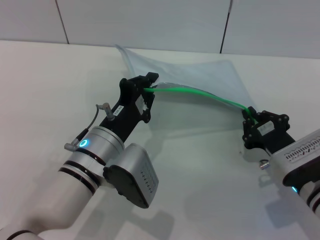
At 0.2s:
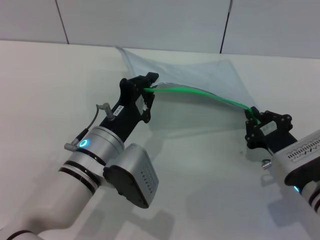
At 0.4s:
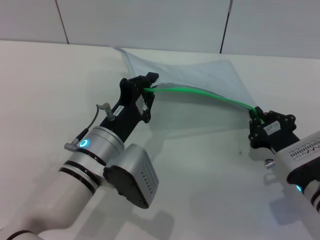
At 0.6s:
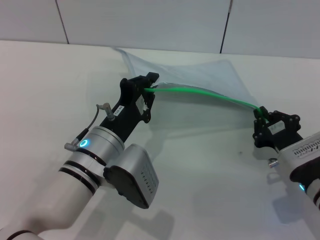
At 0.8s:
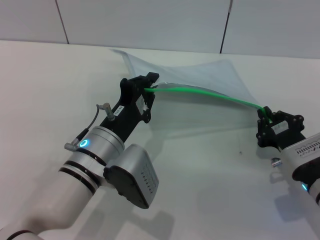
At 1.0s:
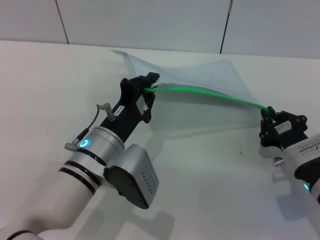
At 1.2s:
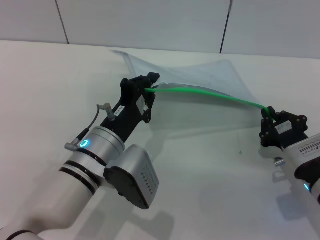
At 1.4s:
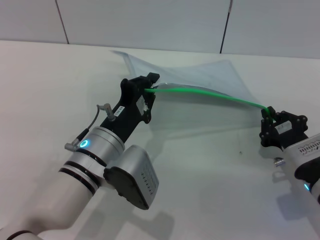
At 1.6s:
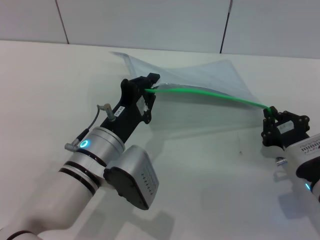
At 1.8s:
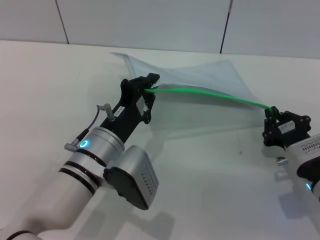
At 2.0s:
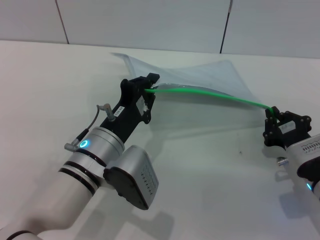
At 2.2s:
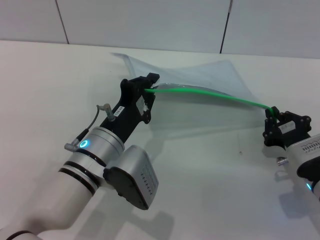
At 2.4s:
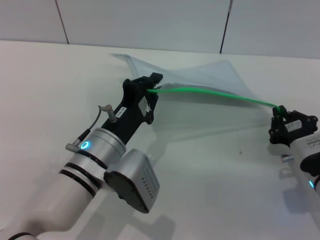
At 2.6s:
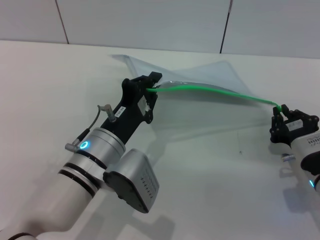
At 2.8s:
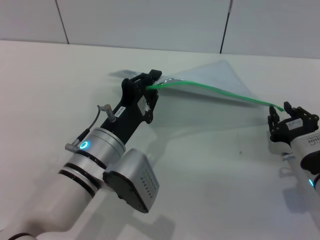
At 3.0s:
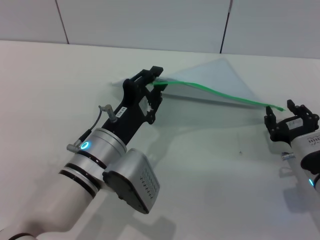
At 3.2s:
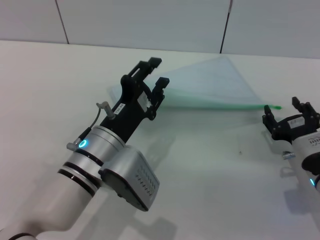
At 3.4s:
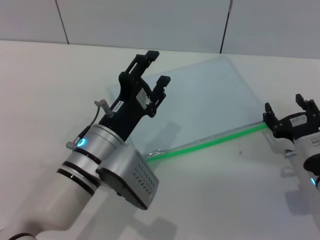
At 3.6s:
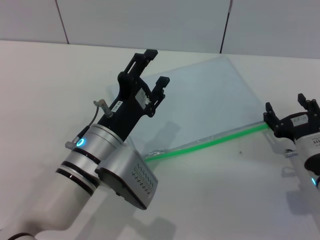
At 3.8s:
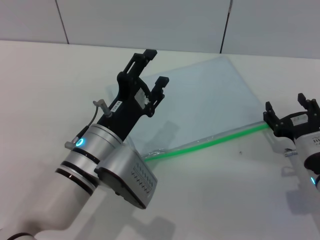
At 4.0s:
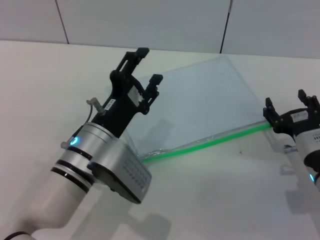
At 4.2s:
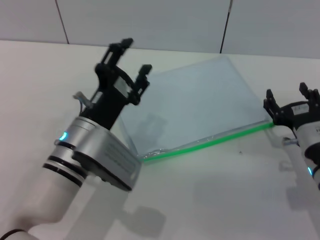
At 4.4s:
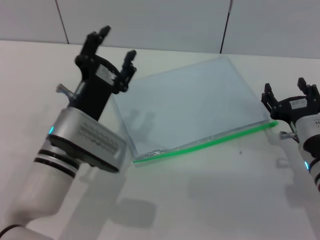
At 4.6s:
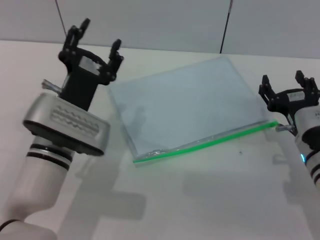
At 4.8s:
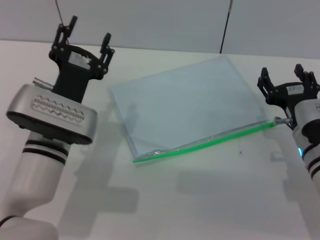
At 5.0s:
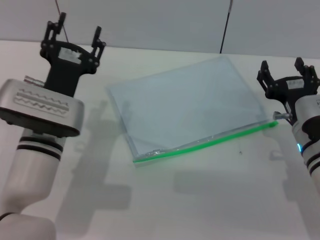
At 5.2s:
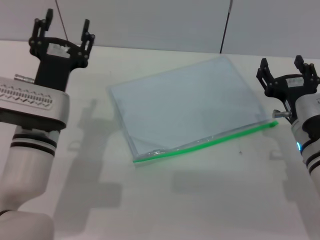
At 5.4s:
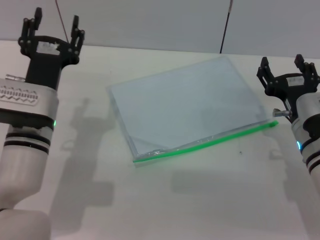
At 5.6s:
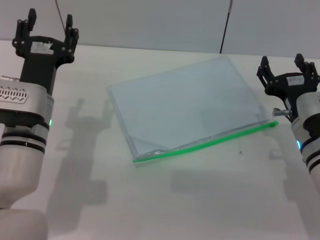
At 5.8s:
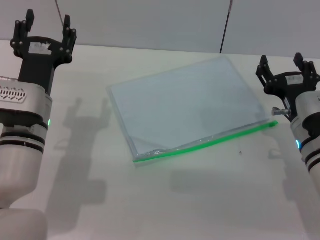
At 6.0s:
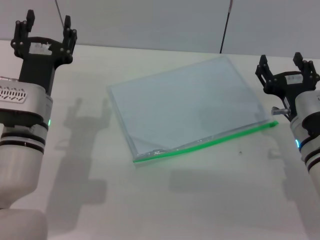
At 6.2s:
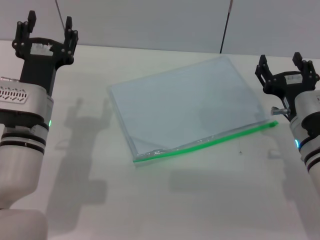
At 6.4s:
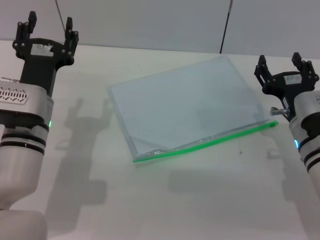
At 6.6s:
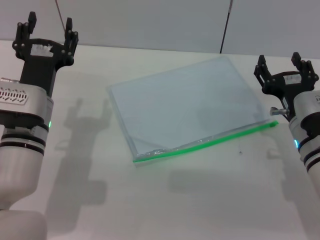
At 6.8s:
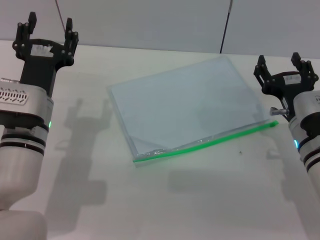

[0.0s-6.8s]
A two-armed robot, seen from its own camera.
Step, 0.0s to 3.0s: Pulling up the zipper on the transparent plastic bag with the right gripper to close it.
Step, 3.2s to 3.8s: Place the transparent plastic bag.
0.0s to 2.8s: The grippers stay close to where they were, moving slightly.
2.8s to 4.0s: The left gripper opens up; the right gripper opens up.
4.0s to 5.4s: The left gripper is displaced to the left by roughly 5 cm. Meanwhile the right gripper moves some 5 cm.
5.4s to 6.8s: Both grippers stay about where they are.

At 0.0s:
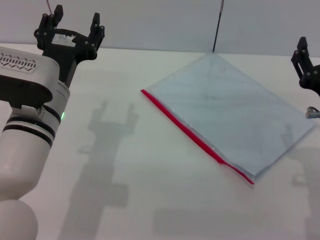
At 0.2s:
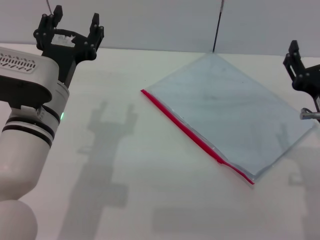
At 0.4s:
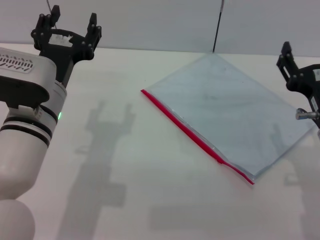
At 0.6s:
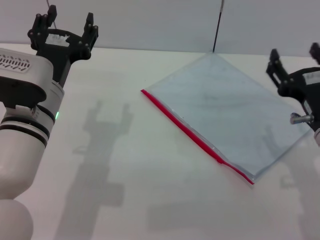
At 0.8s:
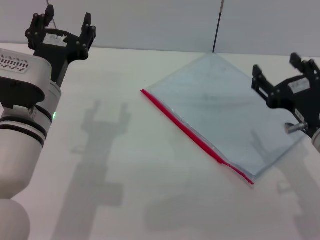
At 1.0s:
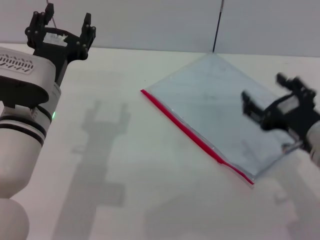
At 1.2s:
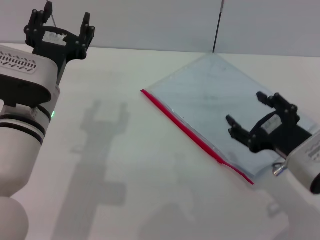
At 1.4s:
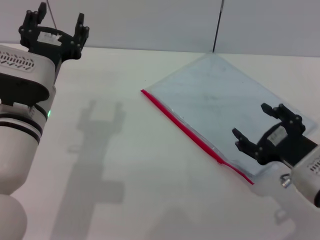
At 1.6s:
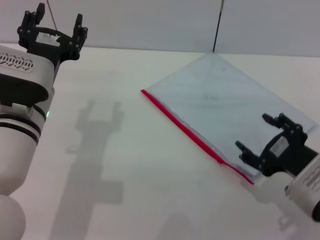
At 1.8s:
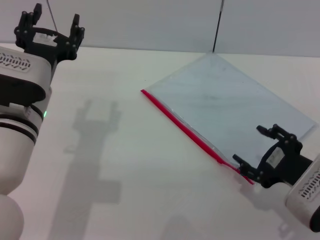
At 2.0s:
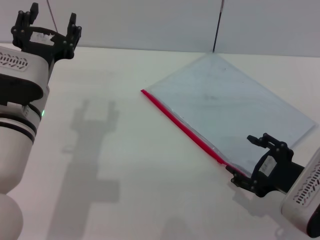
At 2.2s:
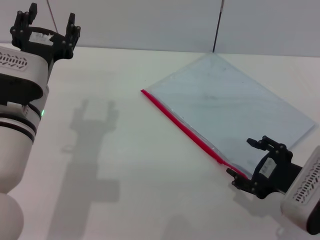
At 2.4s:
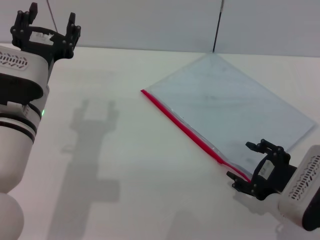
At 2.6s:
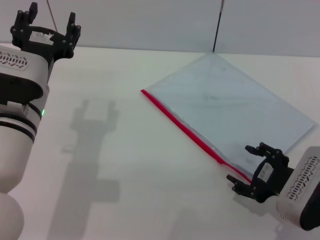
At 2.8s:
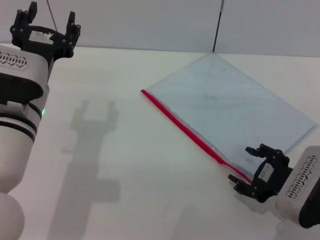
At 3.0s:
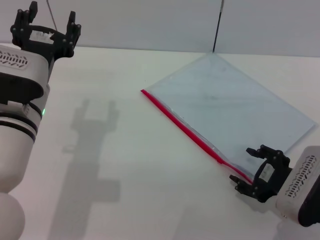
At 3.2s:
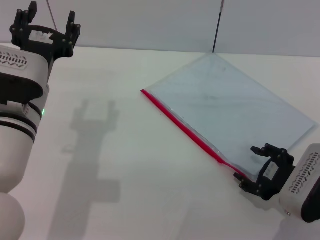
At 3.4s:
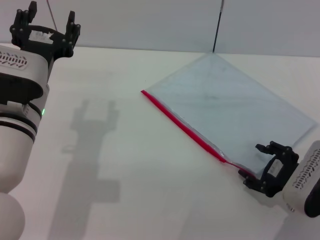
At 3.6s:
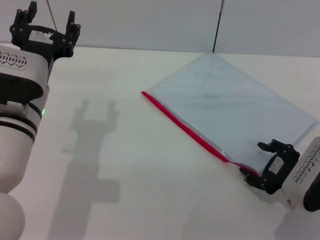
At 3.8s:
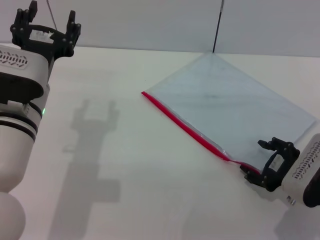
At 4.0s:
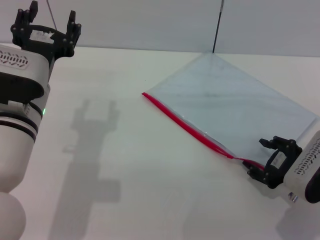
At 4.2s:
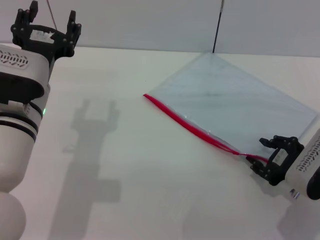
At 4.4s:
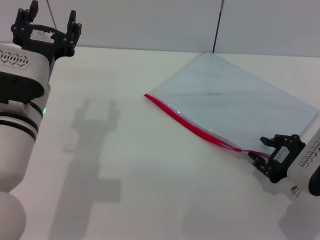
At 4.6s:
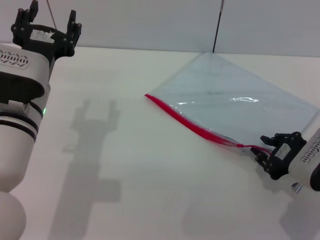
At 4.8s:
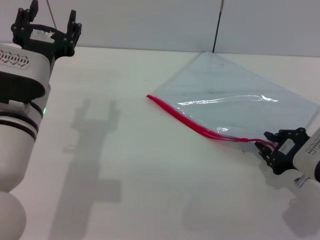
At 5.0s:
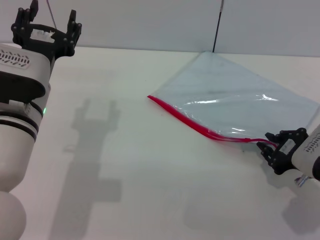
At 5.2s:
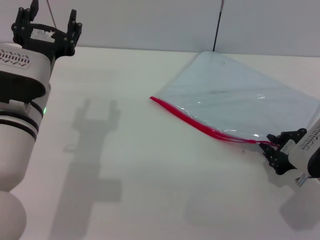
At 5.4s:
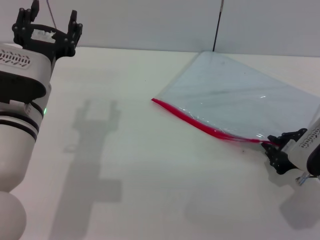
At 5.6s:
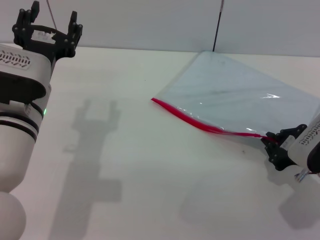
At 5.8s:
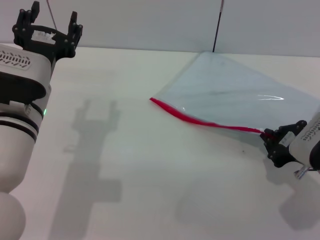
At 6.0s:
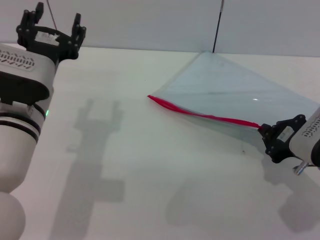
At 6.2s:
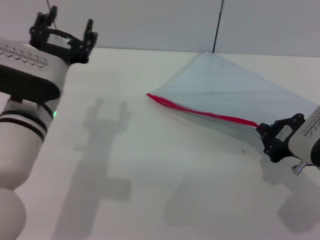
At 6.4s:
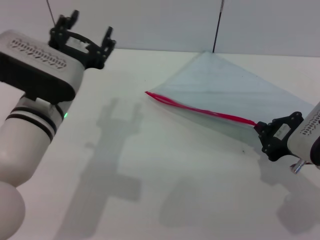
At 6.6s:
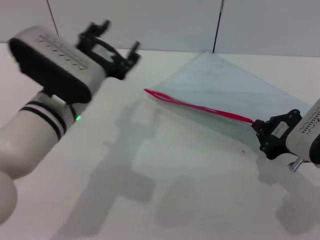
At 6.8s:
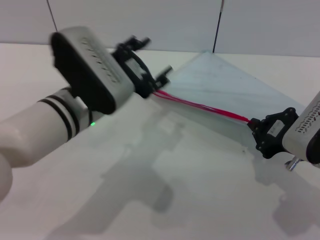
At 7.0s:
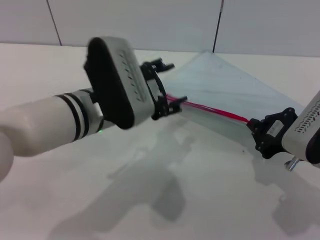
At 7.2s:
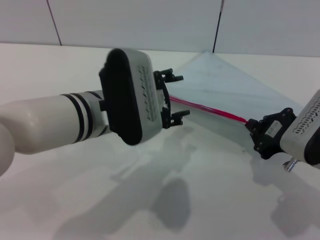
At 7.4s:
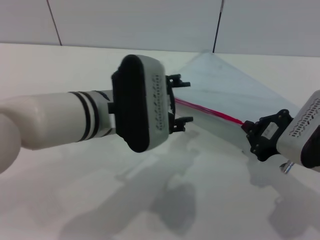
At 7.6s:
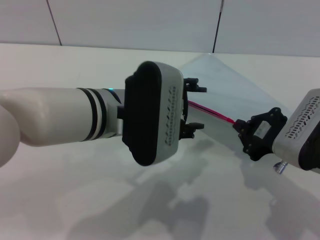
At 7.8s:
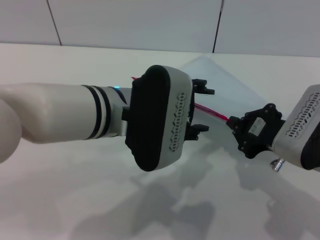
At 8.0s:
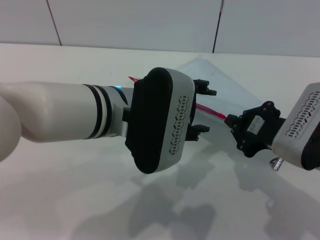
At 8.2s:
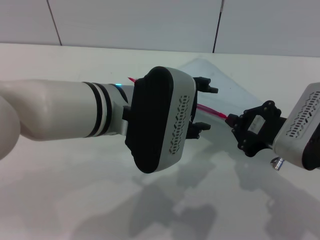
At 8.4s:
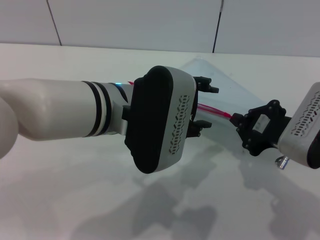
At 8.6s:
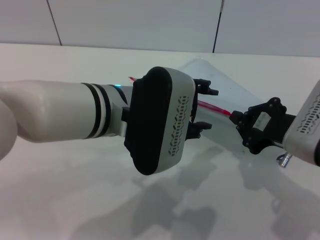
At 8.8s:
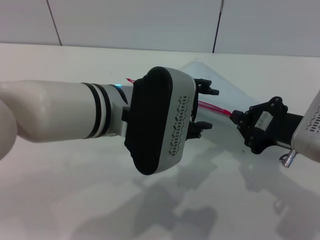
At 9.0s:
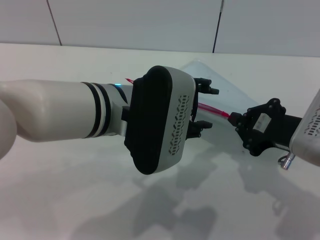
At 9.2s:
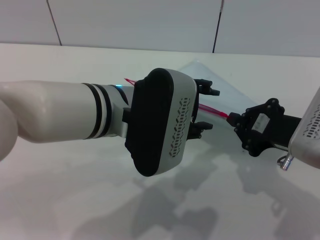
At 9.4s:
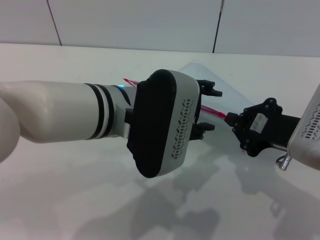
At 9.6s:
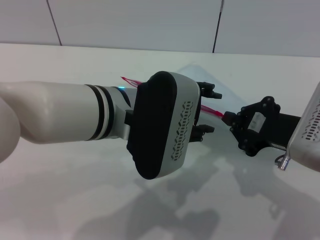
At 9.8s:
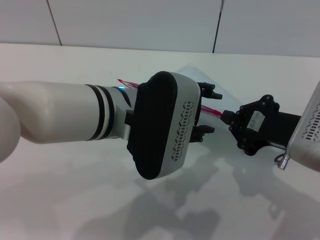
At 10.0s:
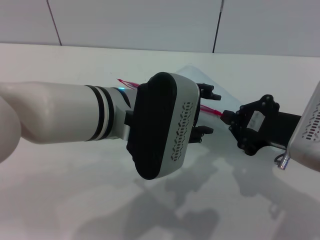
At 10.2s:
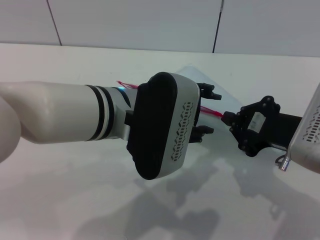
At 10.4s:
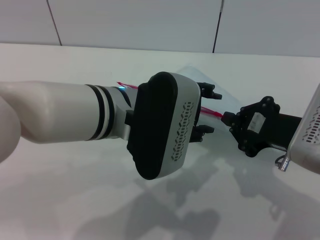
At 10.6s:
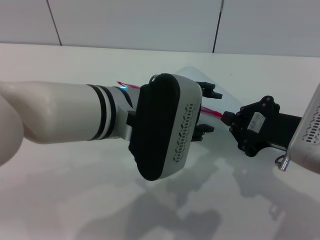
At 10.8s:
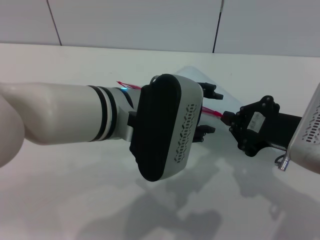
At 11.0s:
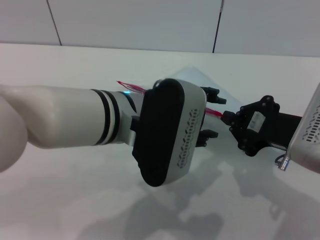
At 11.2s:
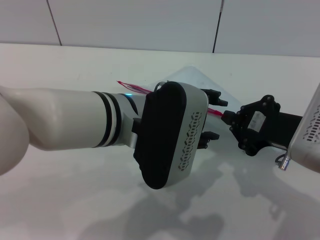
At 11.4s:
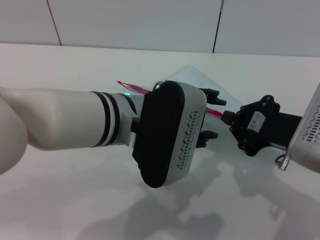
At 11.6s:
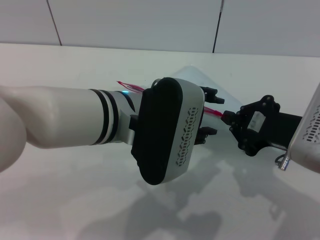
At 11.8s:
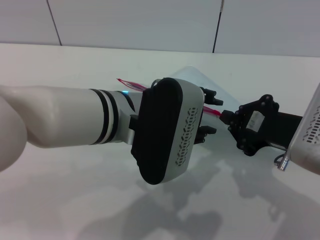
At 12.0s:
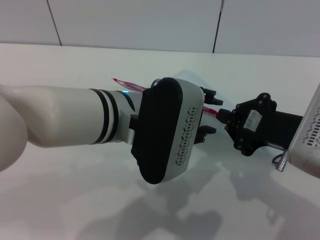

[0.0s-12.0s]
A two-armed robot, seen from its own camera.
Step, 0.0s to 7.2s: Pick up the transparent plastic bag with the right gripper.
1.6s to 4.4s: The grippers stay close to where they were, moving slightly.
4.4s to 6.0s: The right gripper closes.
6.0s to 7.6s: The left gripper moves to the right, some 10 cm.
7.6s to 9.0s: The grippers move only a little.
9.0s to 10.4s: Neither gripper changes place.
10.4s to 12.0s: Both grippers stay put.

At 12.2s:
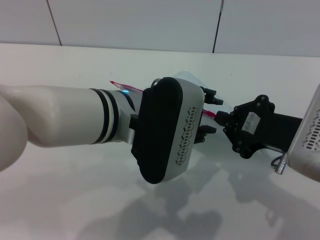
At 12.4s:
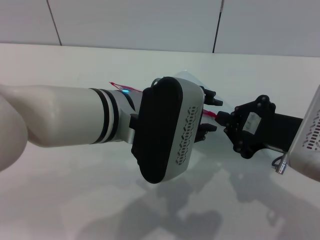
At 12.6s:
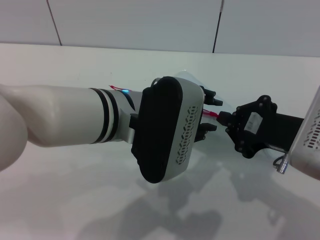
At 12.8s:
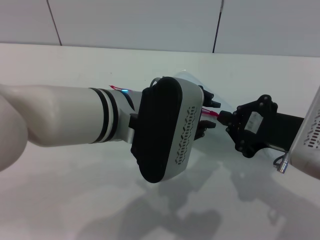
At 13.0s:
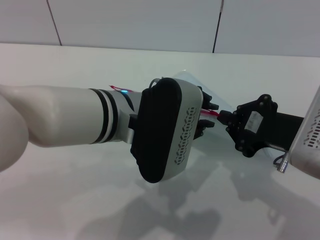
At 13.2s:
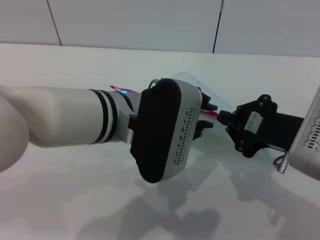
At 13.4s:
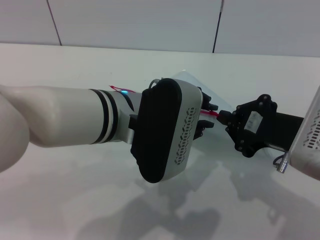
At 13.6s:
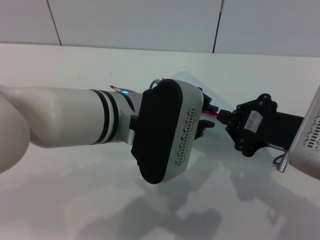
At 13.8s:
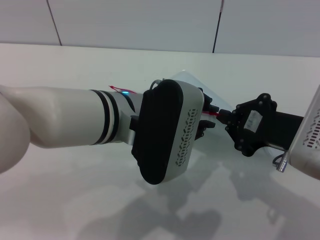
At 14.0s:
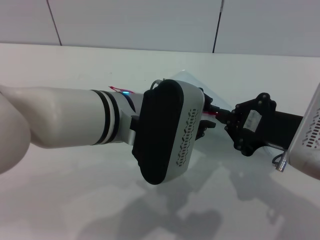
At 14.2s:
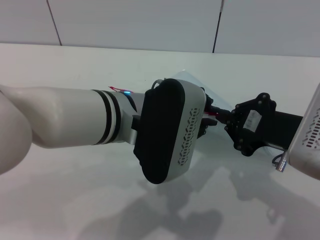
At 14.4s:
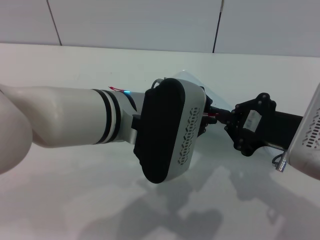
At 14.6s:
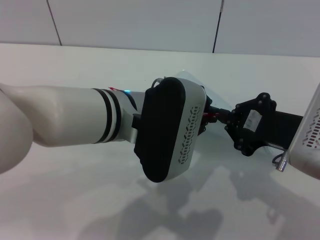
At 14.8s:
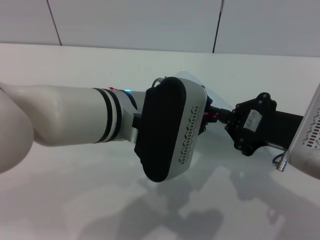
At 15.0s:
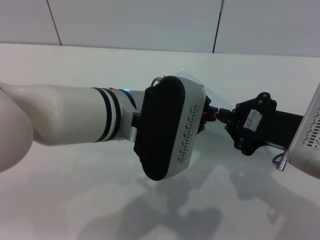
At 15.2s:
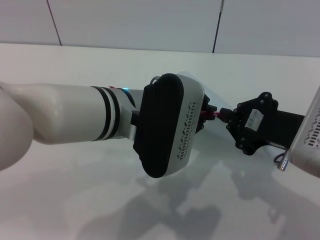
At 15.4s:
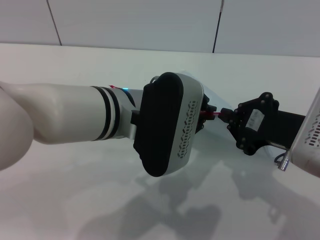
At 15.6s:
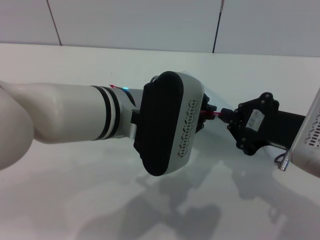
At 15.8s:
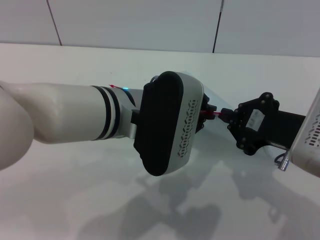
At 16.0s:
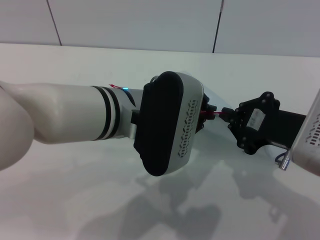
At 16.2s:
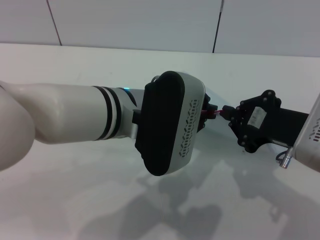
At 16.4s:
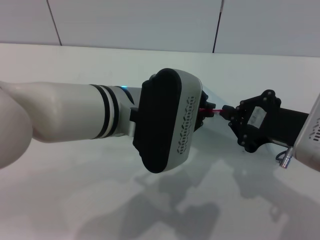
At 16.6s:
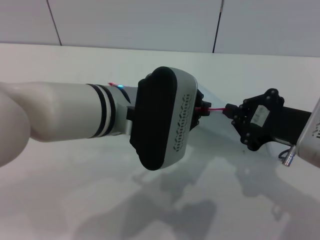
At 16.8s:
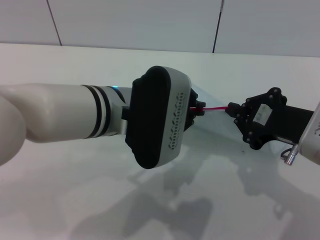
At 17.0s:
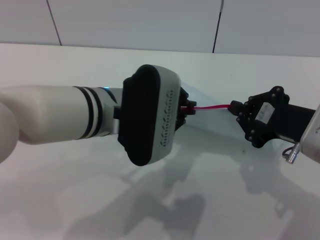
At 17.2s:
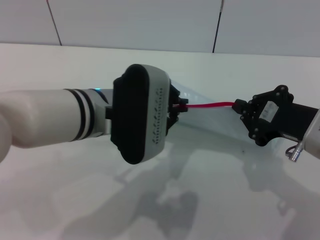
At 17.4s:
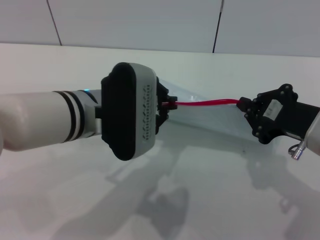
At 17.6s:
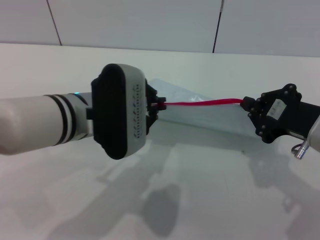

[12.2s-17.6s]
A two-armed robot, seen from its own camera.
12.2s to 16.2s: Both grippers stay about where they are.
16.2s to 17.6s: The left gripper travels to the left by some 5 cm.
